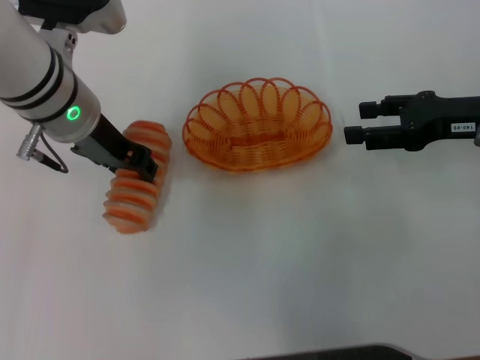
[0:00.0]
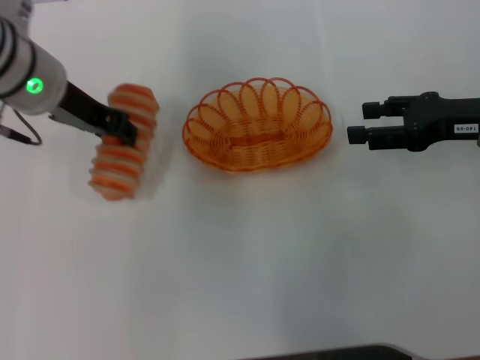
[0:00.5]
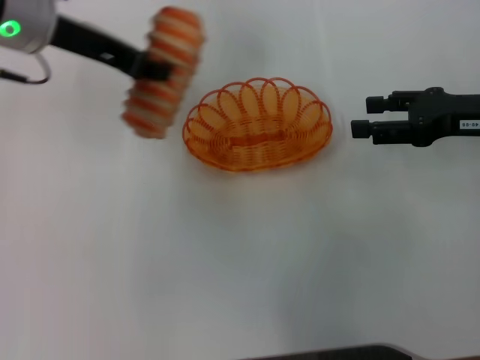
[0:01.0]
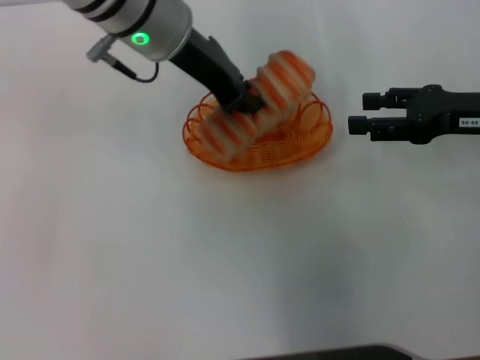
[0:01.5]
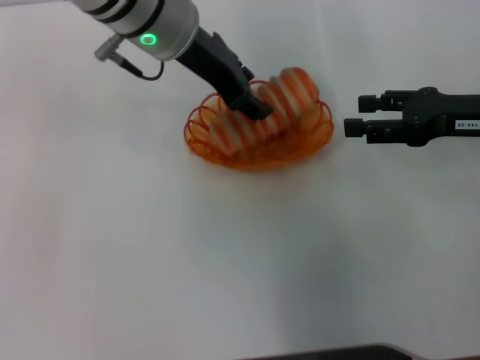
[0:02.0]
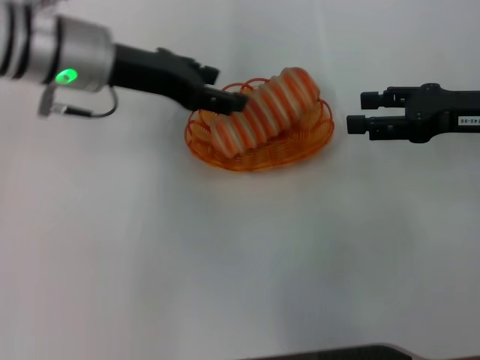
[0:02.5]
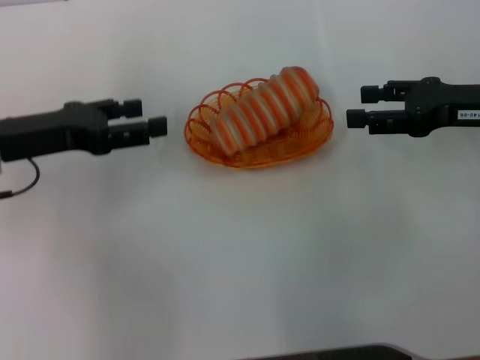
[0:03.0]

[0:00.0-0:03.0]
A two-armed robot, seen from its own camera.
Step, 0:01.0 to 0:02.0: Place the long bread into the basket with the left gripper.
0:00.0 to 0:01.5: The left gripper goes approximately 5 cm to the right, and closes its fingers.
0:01.5 to 0:03.0: The left gripper is displaced to the left, downward and backward by approximately 20 cm, and opens its fingers.
